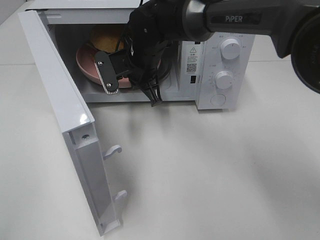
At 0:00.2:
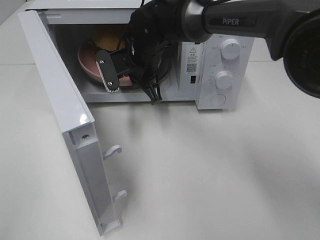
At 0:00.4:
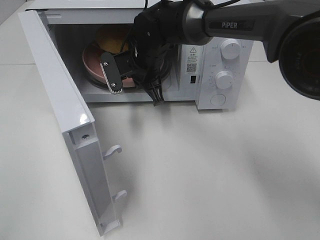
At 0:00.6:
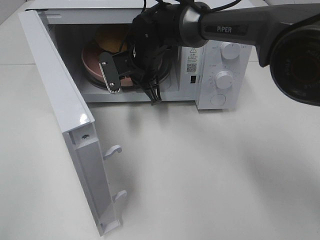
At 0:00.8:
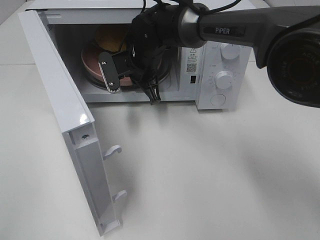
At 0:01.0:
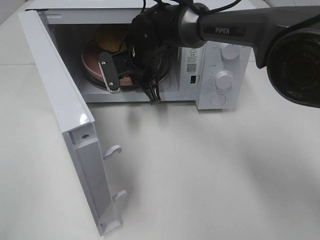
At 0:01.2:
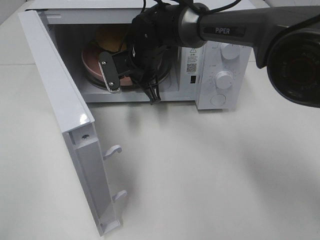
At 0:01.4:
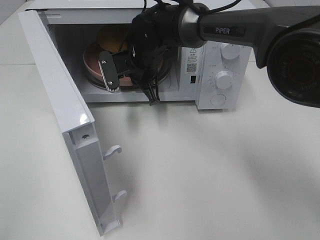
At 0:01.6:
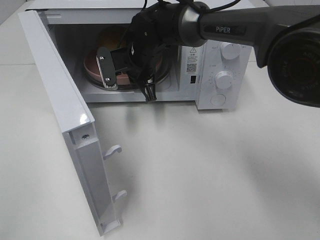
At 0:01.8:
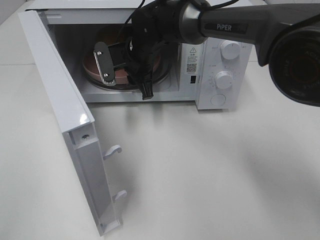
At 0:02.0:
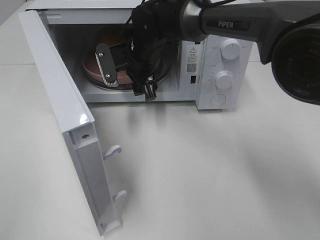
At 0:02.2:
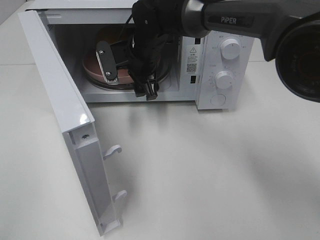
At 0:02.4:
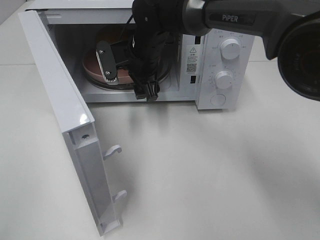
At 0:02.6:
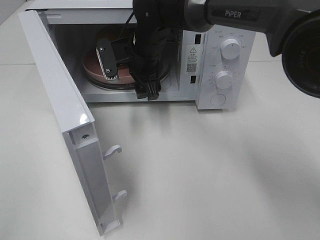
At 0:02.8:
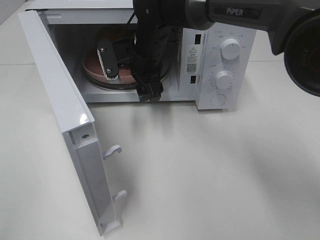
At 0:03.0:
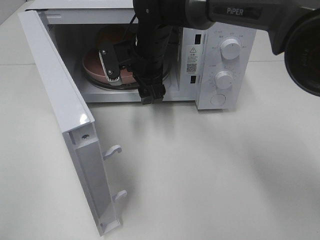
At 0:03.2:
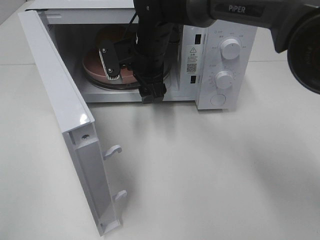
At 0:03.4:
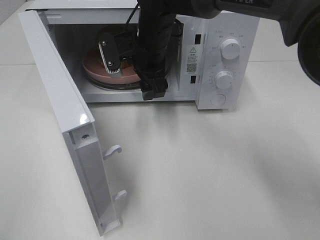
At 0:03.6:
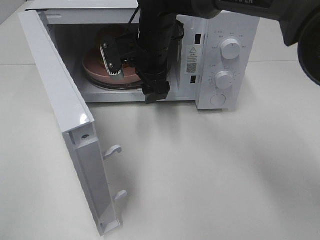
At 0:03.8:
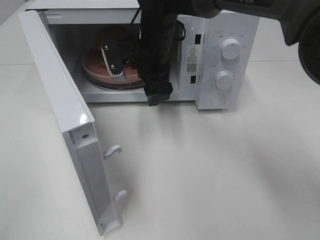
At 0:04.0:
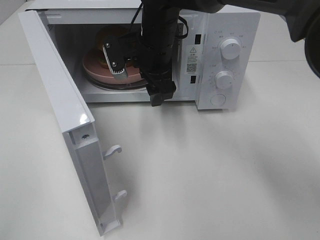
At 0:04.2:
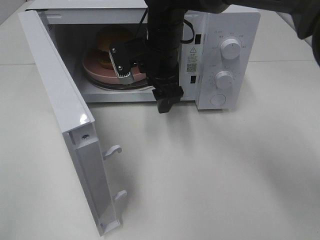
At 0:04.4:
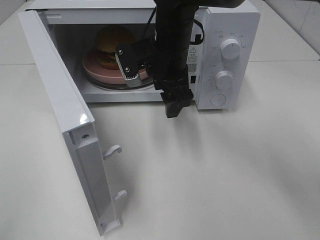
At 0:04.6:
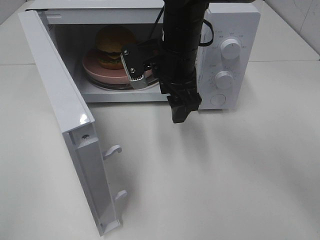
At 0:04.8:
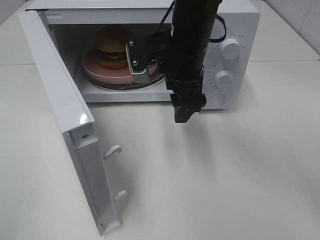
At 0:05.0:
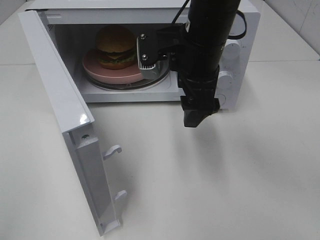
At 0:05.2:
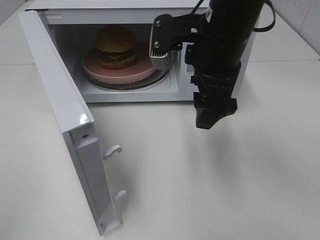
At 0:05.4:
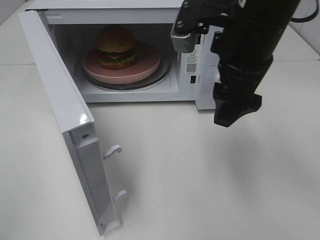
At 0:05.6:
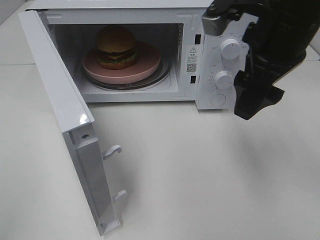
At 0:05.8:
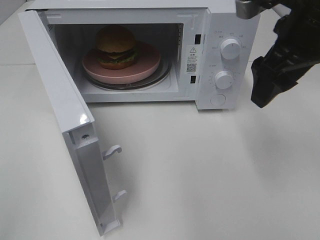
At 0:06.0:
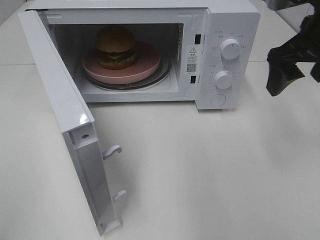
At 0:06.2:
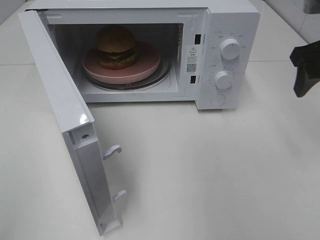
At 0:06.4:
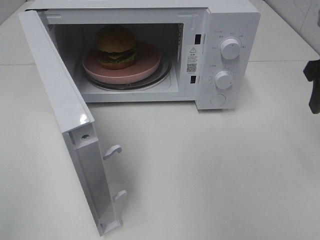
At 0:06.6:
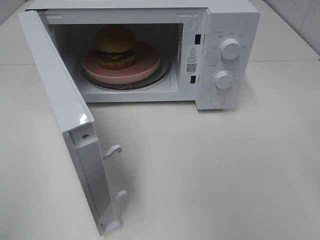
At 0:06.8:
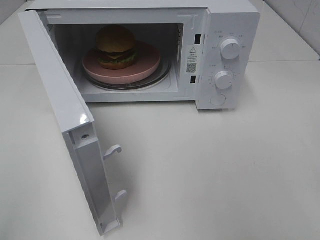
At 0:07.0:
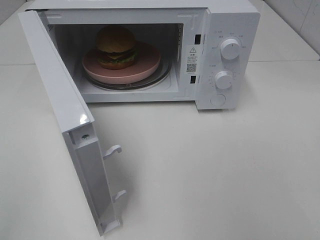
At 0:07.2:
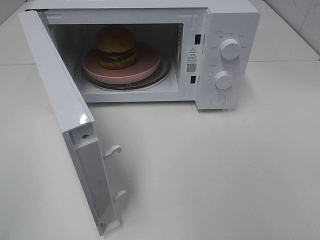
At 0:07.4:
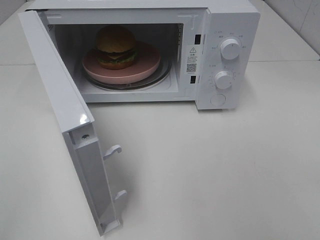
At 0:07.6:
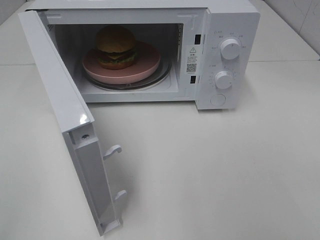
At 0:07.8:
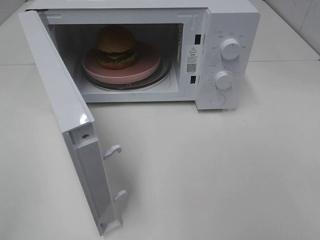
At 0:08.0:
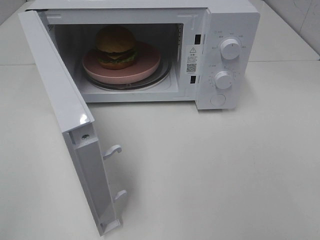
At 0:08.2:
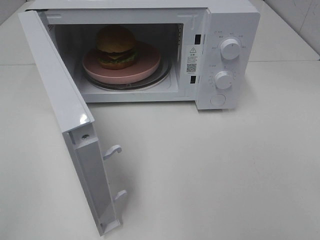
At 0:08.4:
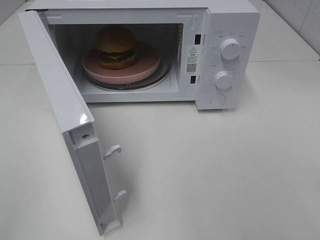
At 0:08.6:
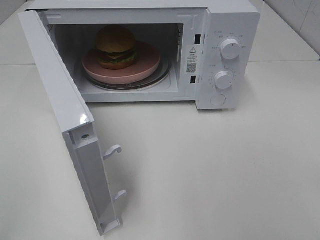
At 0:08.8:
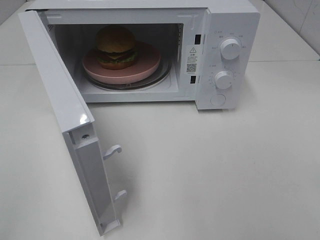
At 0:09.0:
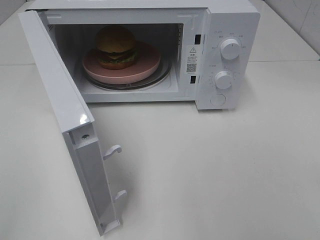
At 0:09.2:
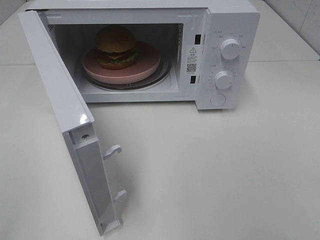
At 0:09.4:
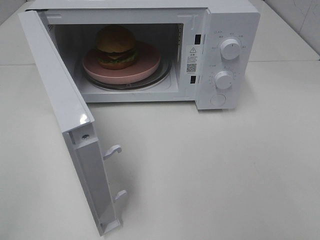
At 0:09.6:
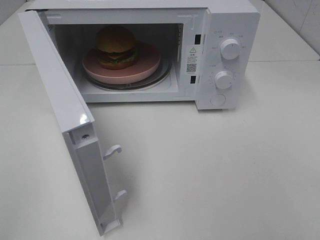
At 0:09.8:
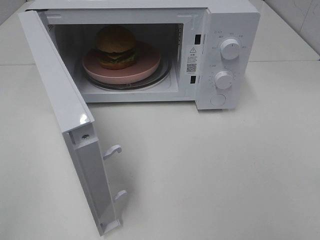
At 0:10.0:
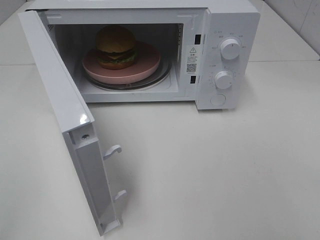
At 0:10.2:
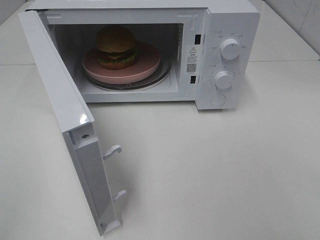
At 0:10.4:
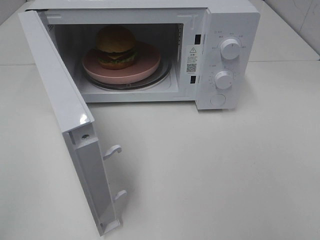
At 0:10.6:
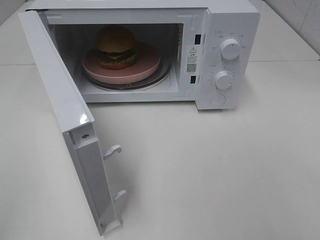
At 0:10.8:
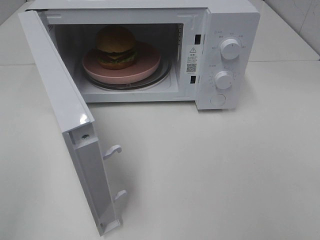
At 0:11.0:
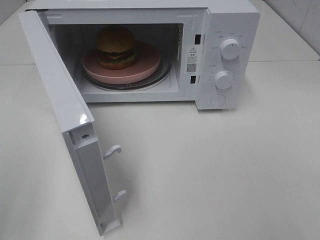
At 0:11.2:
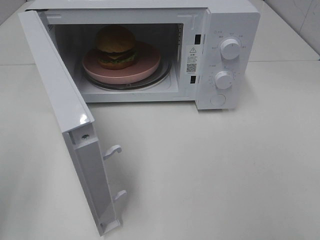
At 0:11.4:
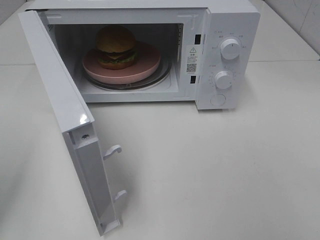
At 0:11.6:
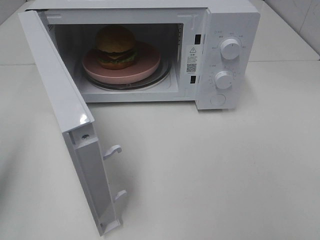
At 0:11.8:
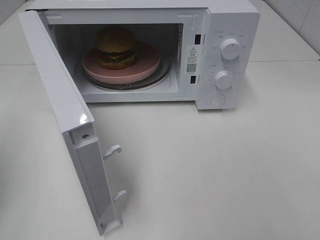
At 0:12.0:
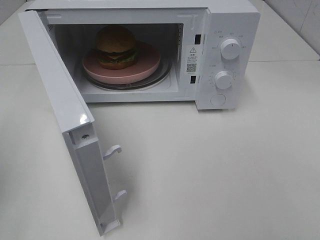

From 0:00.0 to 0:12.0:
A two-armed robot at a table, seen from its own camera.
Task of the whole recording: Heat the burger.
From 0:00.0 to 0:01.6: The grippers move only a little.
From 0:01.6 to 0:03.0: The right gripper opens its fingers.
From 0:03.0 to 0:04.4: The right gripper shifts by approximately 5 cm.
From 0:04.4 to 0:06.0: The right gripper shifts approximately 20 cm to the right.
From 0:06.0 to 0:07.6: The right gripper moves backward, approximately 30 cm.

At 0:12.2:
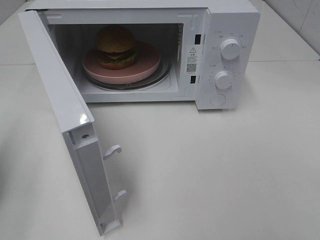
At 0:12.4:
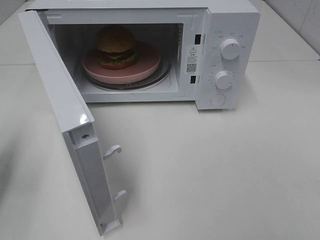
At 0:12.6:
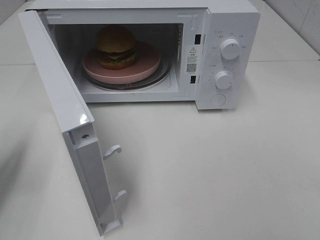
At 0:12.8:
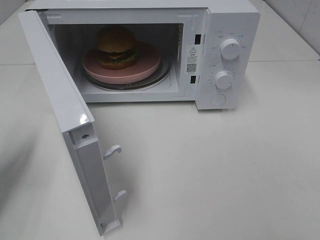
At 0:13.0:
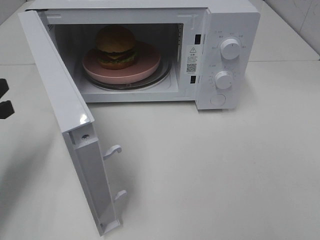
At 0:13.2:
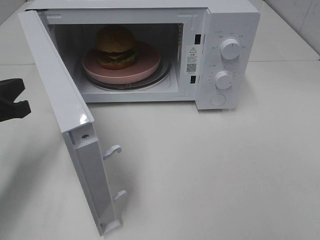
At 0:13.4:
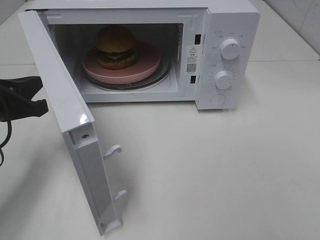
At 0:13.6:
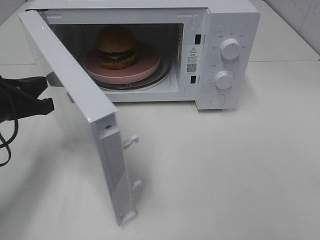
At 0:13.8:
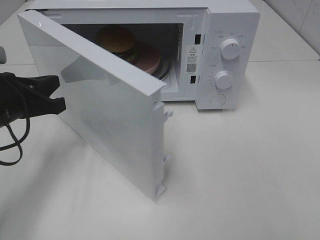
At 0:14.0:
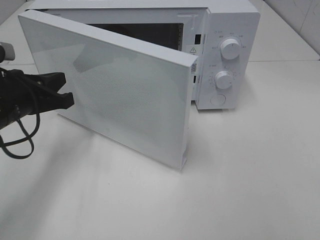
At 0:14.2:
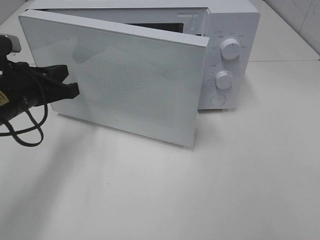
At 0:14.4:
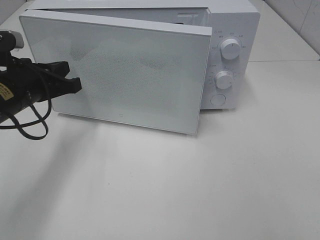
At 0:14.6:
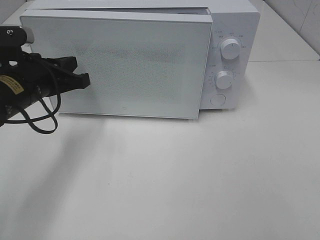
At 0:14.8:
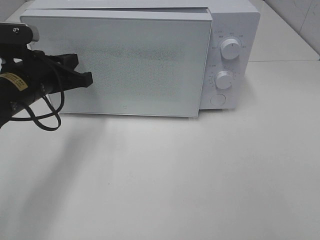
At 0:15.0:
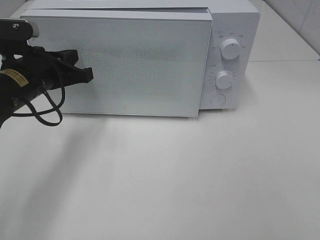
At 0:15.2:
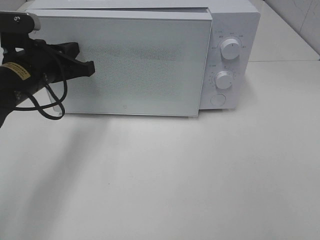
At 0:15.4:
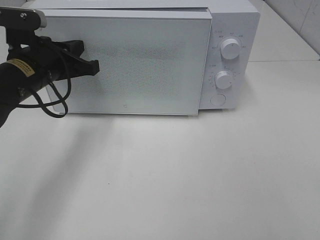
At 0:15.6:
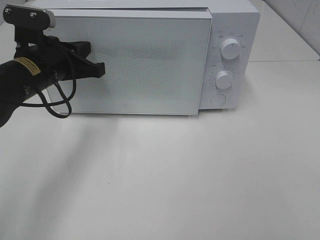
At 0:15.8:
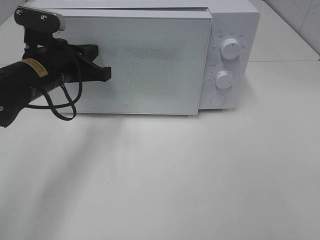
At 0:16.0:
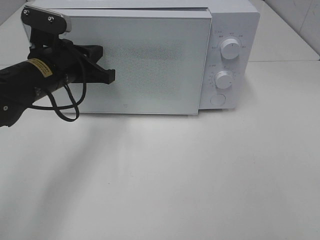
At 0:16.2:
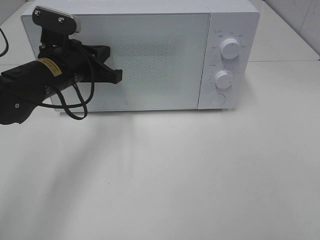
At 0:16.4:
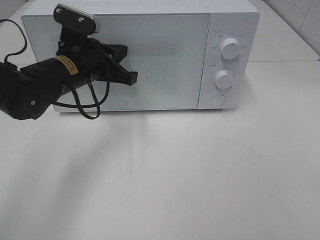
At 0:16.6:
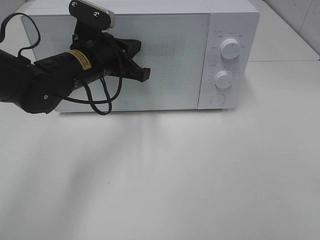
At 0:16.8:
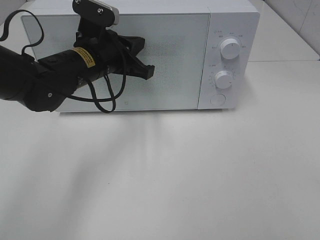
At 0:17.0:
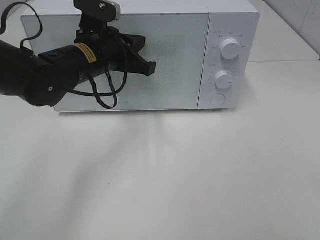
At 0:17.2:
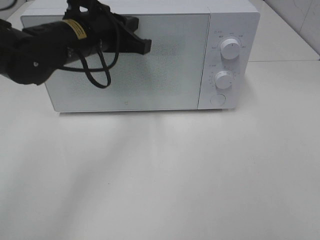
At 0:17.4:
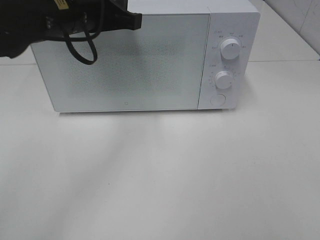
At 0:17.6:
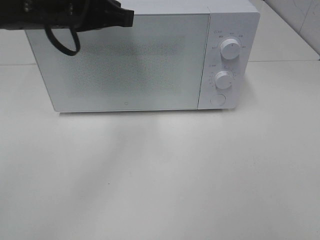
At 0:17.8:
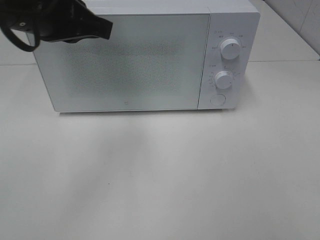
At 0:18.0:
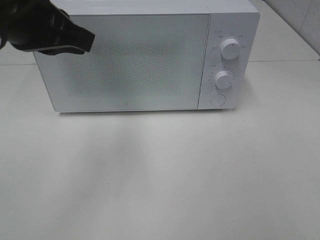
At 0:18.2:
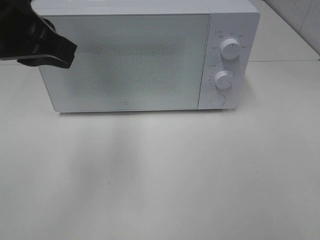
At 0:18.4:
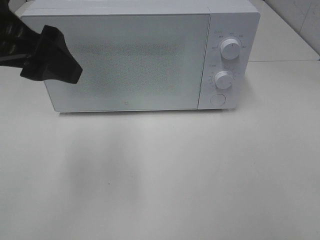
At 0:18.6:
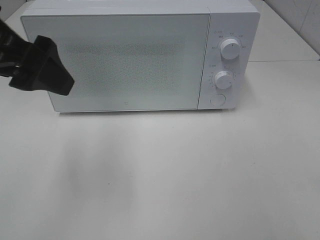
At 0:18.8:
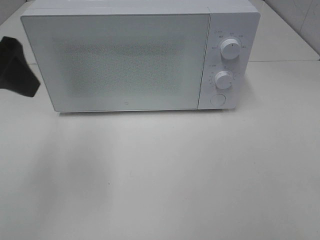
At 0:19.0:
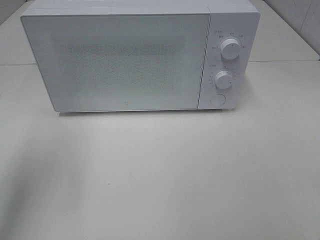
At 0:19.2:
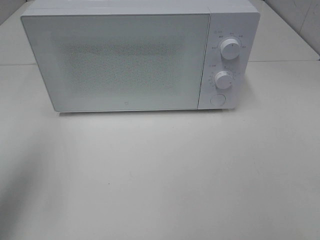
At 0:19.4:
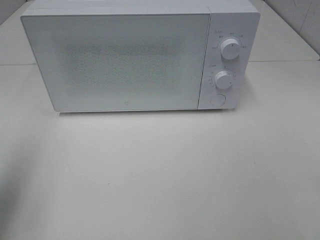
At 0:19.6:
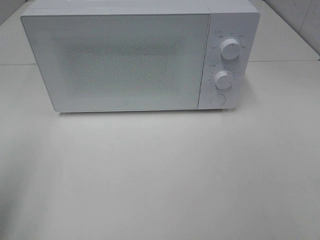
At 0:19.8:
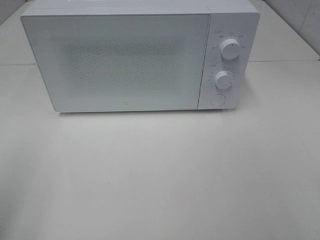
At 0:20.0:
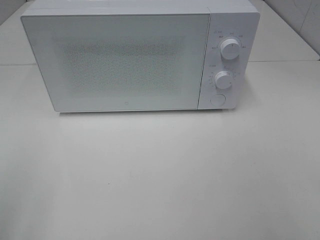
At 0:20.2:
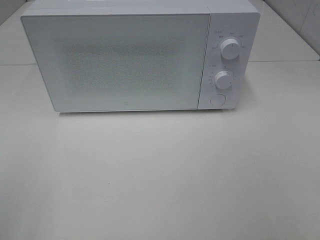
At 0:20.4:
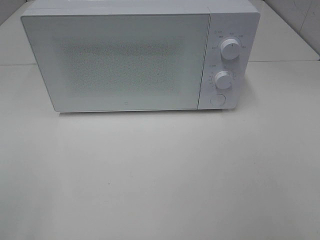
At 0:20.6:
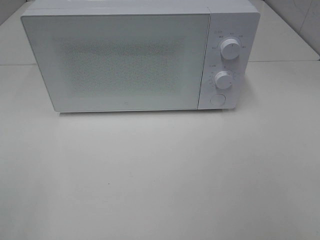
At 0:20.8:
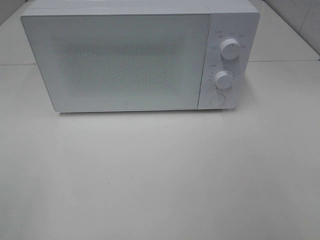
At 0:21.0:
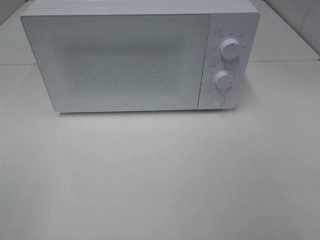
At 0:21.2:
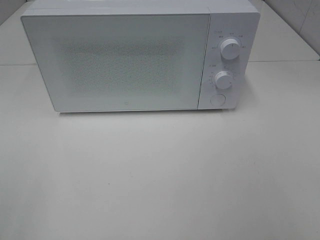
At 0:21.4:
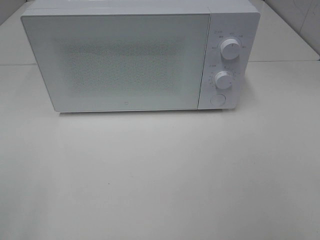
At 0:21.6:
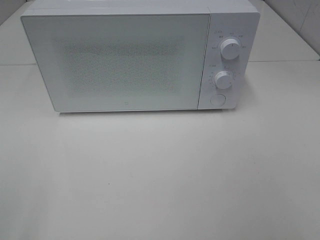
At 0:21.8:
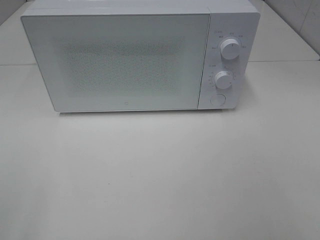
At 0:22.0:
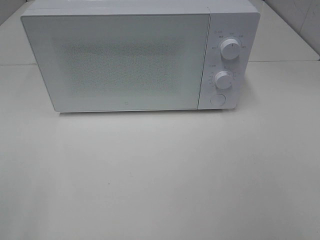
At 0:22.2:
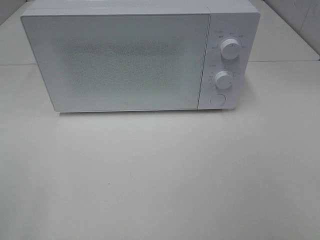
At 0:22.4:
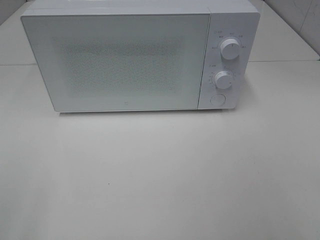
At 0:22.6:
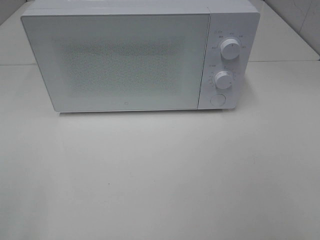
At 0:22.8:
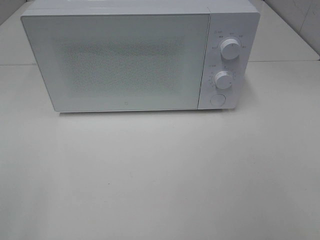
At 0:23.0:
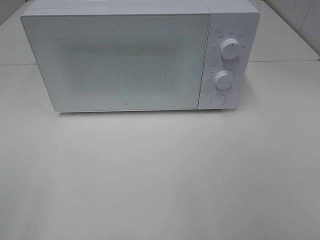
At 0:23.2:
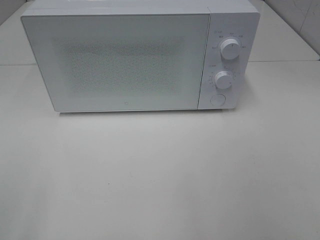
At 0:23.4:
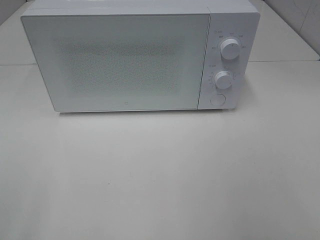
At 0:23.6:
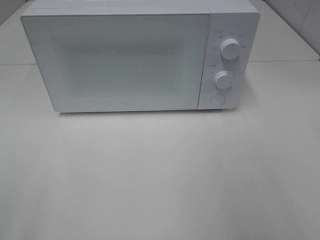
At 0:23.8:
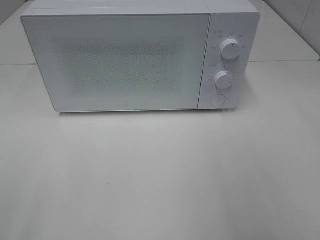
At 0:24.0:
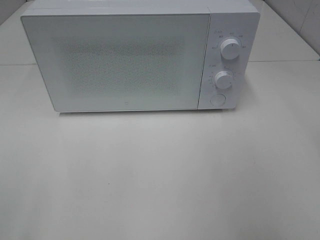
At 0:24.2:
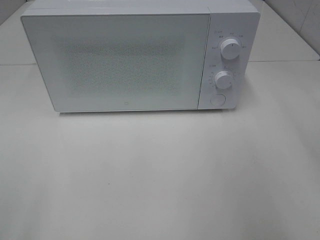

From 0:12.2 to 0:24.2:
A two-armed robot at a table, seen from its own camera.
Task of the whole recording: Heat the burger.
Step, from 0:12.2 to 0:16.2: Left hand: close the microwave door.
From 0:12.2 to 0:13.8: The left gripper moves to the right and forward, about 15 cm.
From 0:13.8 to 0:15.2: The left gripper heads forward, covering some 5 cm.
From 0:15.2 to 0:16.6: The left gripper heads to the right, covering approximately 10 cm.
From 0:16.6 to 0:18.2: The left gripper goes some 20 cm upward, backward and to the left.
From 0:18.2 to 0:19.8: The left gripper is displaced backward and to the left by about 20 cm, and opens.
From 0:21.2 to 0:22.6: The two grippers keep their place.
